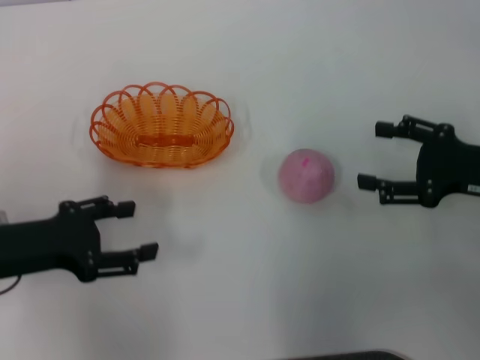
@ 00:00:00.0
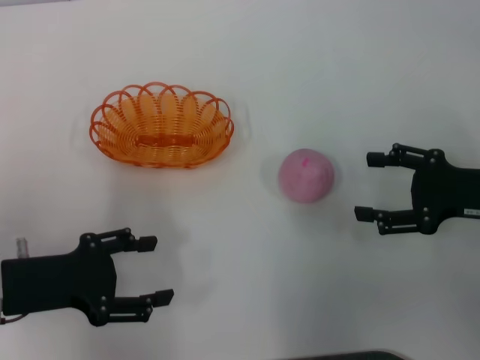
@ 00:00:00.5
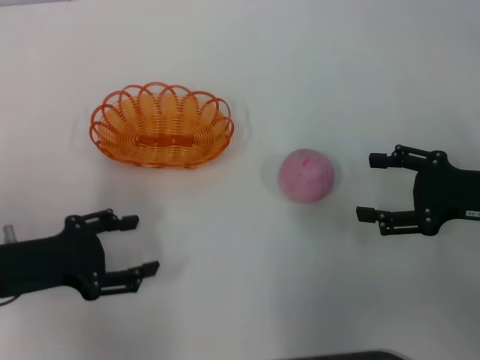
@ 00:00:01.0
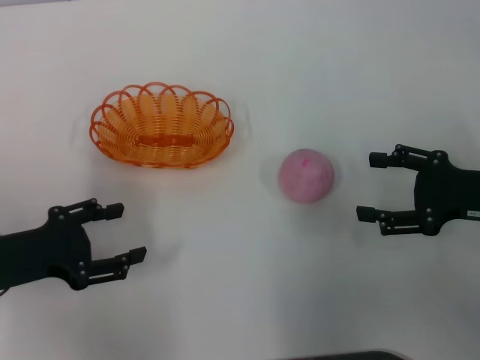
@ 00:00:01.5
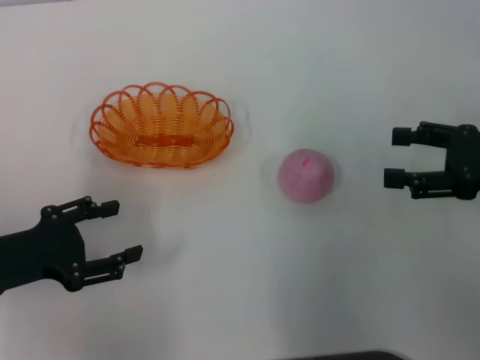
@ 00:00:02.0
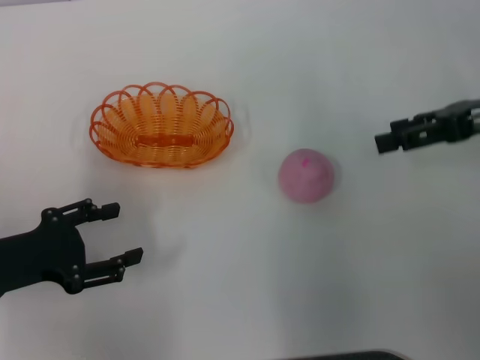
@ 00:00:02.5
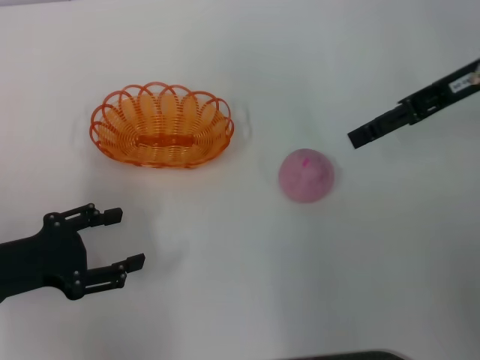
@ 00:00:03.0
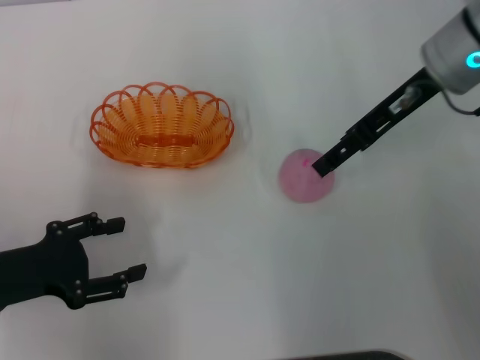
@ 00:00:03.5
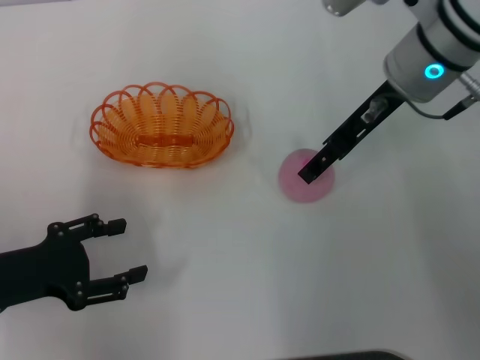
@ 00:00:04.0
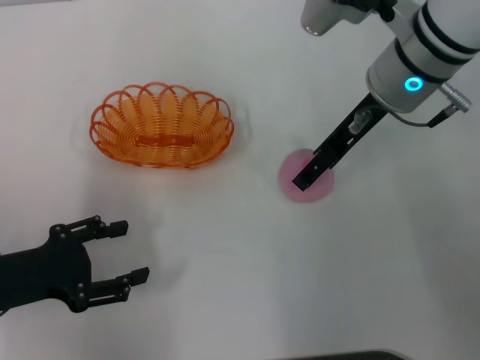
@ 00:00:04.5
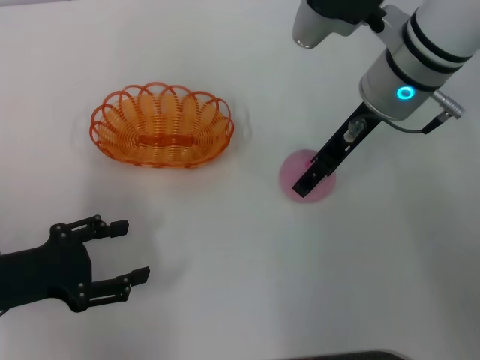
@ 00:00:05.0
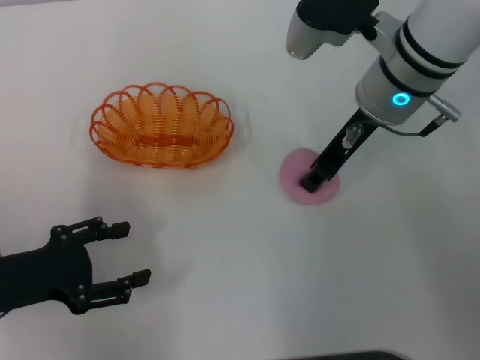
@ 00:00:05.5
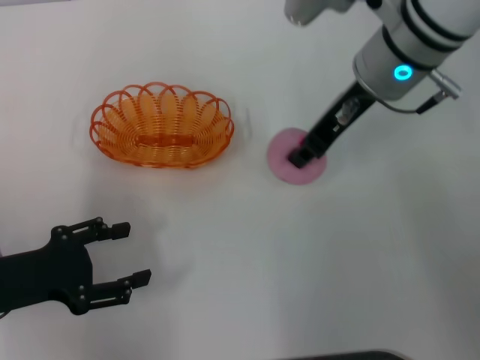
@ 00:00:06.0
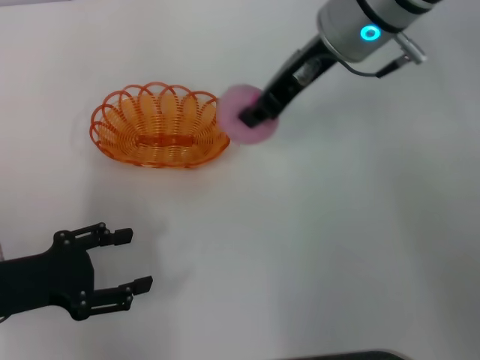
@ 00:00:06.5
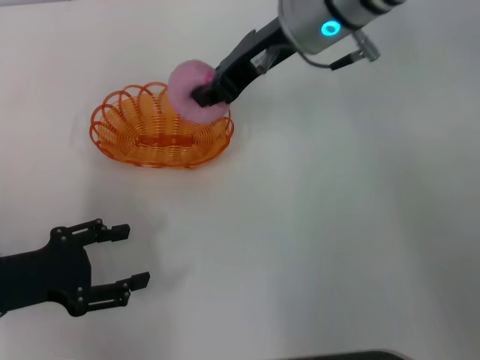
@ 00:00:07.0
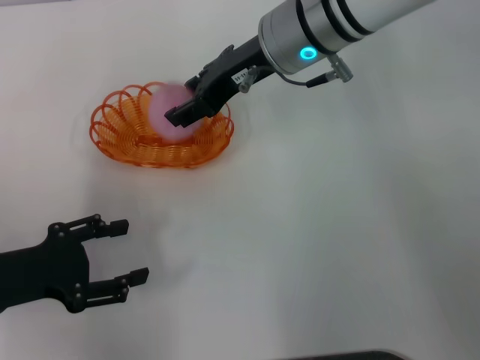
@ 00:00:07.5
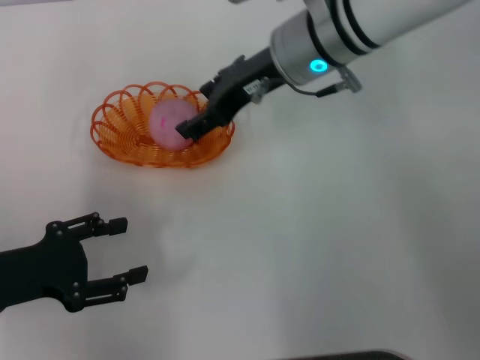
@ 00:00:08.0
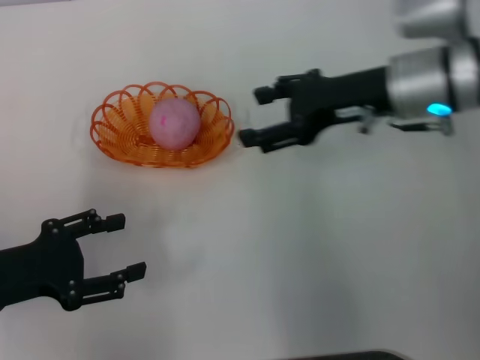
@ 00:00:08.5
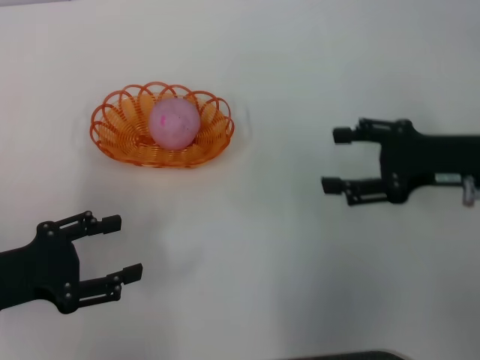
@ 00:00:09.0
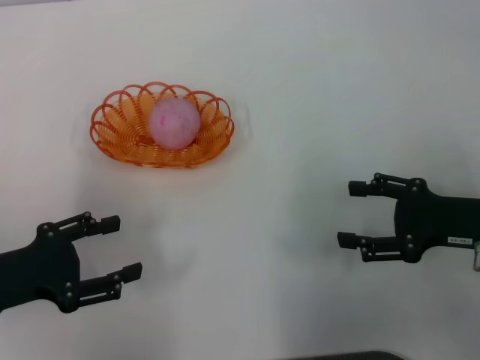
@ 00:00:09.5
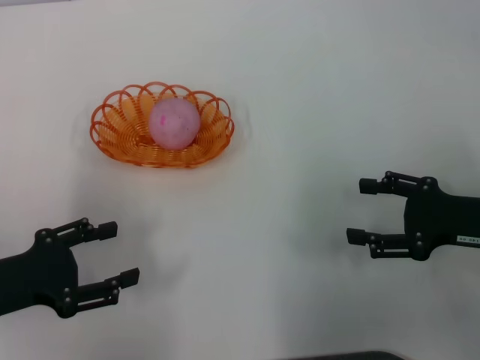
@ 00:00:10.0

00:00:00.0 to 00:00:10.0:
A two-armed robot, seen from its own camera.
Step, 00:00:00.5 to 00:00:06.0: Pick up the peach with the right gripper.
Step, 00:00:06.5 to 00:00:08.5: Place the peach into the basket with the right gripper.
00:00:00.0 to 00:00:02.0: The grippers move only a little.
00:00:02.0 to 00:00:04.0: The right gripper travels to the left, forward and upward by roughly 20 cm.
00:00:04.0 to 00:00:06.0: The right gripper closes up.
00:00:06.0 to 00:00:08.0: The right gripper is displaced to the left by approximately 5 cm, and opens.
00:00:08.0 to 00:00:10.0: The right gripper goes roughly 30 cm to the right, backward and downward.
